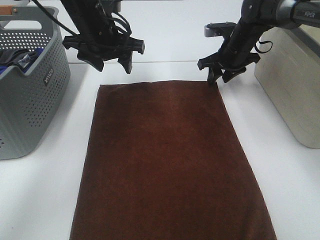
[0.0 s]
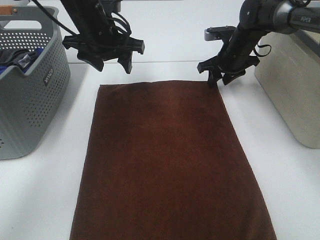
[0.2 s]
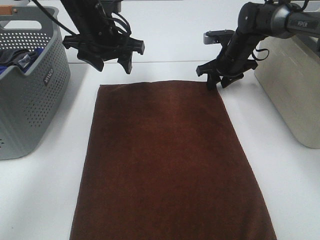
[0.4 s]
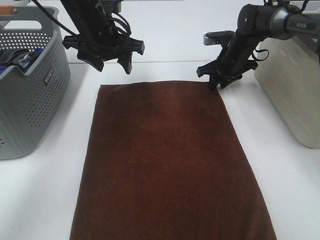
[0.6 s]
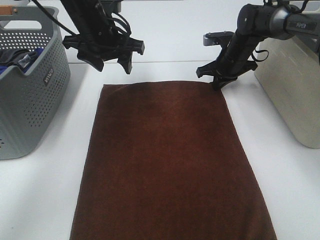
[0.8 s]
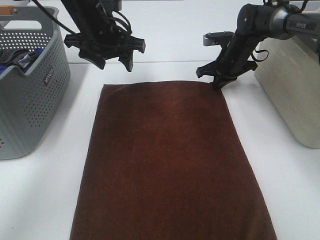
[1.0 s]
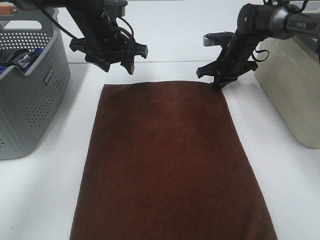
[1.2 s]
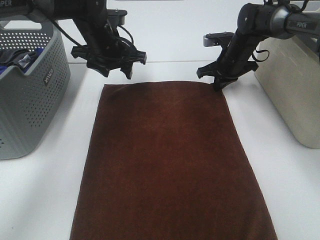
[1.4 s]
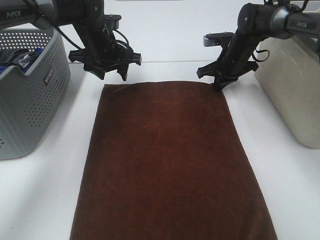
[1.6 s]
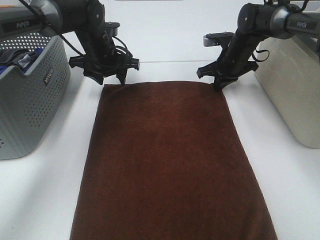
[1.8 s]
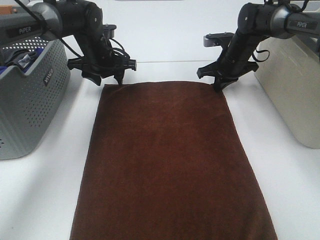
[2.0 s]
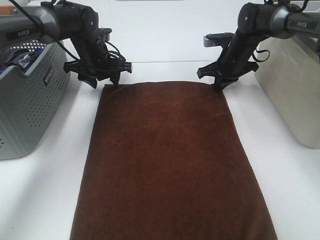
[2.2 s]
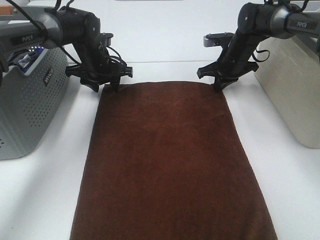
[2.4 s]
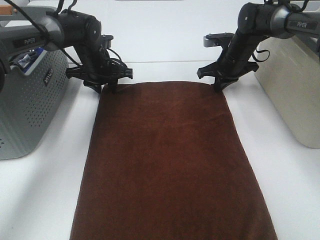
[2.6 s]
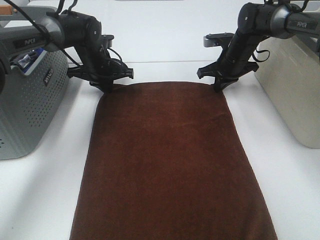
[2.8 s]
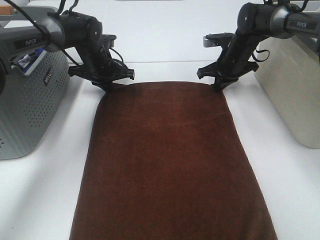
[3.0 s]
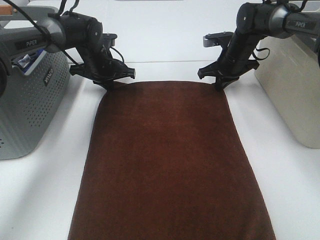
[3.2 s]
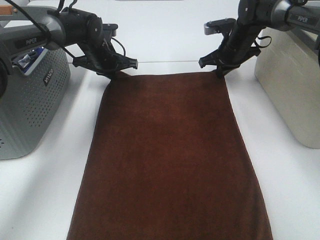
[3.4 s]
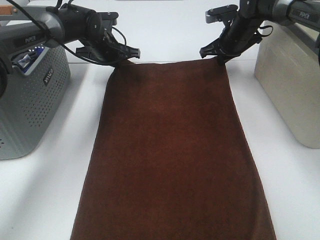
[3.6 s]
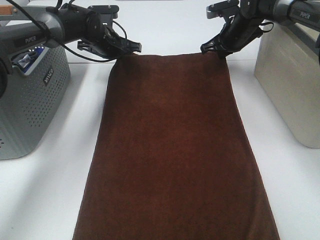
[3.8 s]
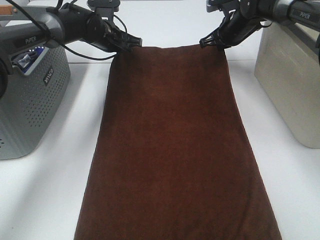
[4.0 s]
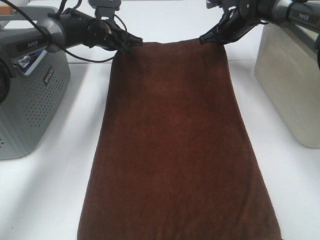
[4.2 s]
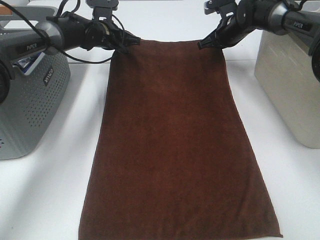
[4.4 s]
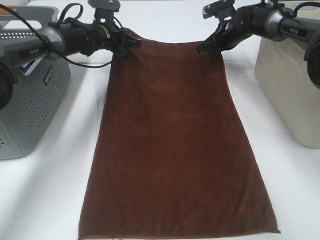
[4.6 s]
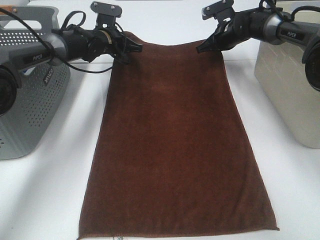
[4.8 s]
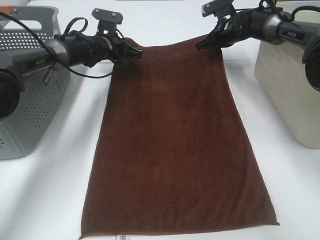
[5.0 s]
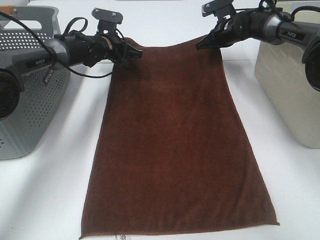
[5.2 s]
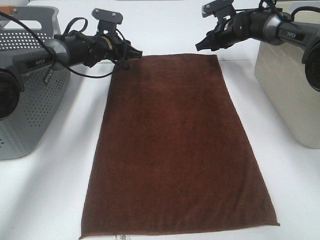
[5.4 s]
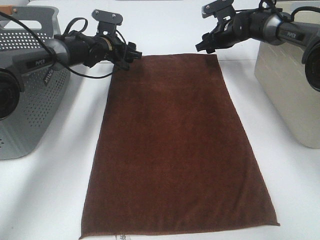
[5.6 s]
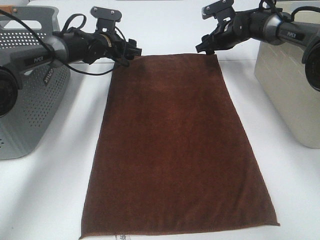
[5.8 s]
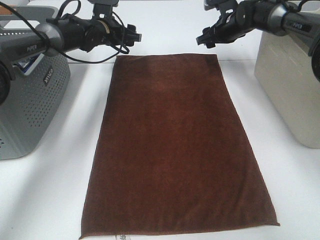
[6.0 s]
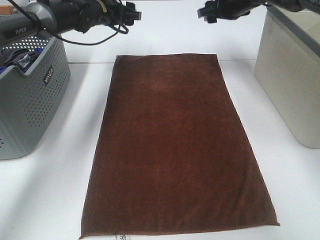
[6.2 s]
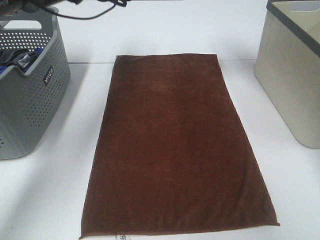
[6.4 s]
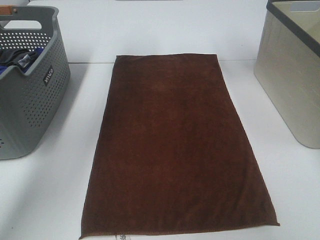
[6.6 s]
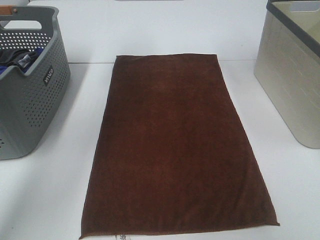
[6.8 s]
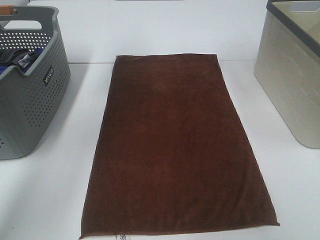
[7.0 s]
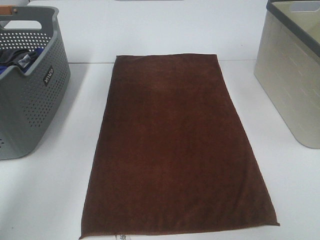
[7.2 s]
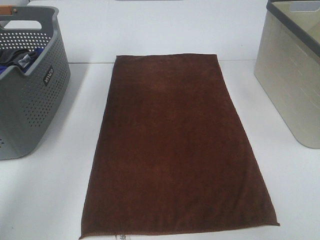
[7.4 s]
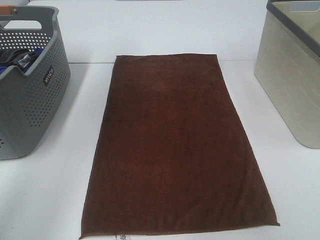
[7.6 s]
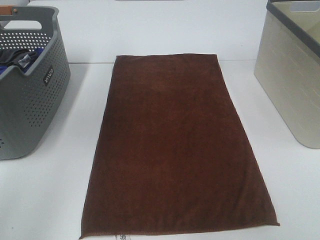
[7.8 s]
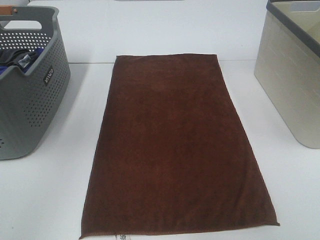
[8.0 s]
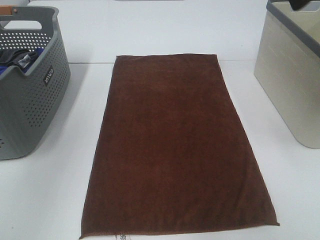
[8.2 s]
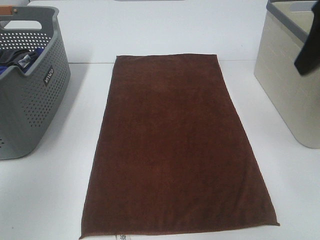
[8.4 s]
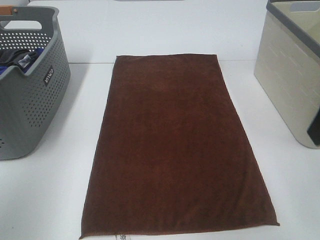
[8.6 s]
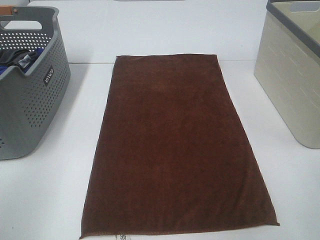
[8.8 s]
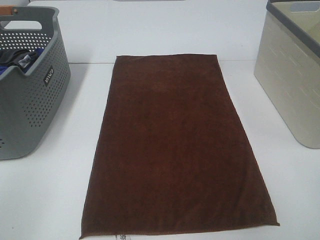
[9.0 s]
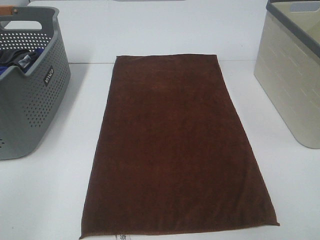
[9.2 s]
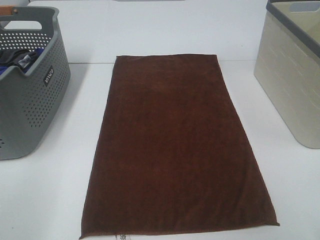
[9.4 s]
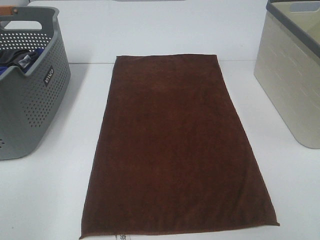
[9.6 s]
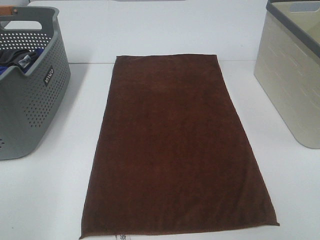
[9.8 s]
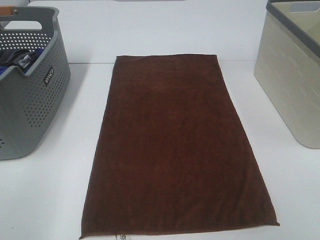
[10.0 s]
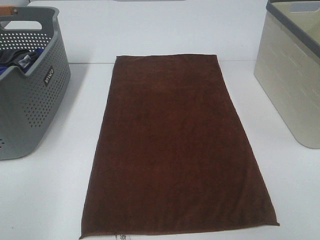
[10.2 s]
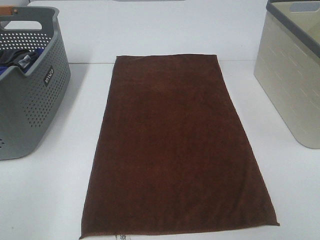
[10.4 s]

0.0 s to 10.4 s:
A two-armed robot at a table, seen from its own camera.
Task of the whole recording: Remove the towel and place it.
0.0 to 1.4 s: The left gripper ends up about 5 cm from where it was; the right gripper closes its fingers.
1.4 to 3.0 s: The left gripper heads downward, covering some 5 cm, and closes up.
3.0 to 4.4 s: The left gripper changes place by about 5 cm. The right gripper shifts approximately 5 cm forward.
4.4 to 6.0 s: The left gripper opens its fingers, while the right gripper opens up.
6.0 to 7.4 s: Both grippers move upward and backward, approximately 30 cm.
7.4 to 9.0 s: The left gripper is displaced backward by about 35 cm.

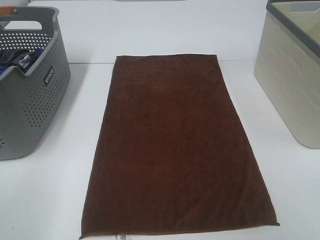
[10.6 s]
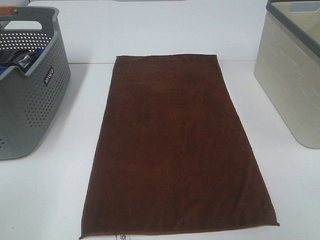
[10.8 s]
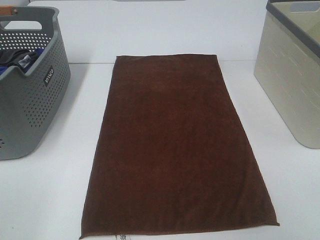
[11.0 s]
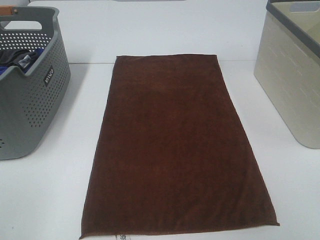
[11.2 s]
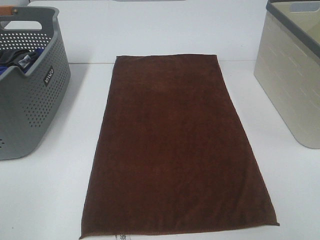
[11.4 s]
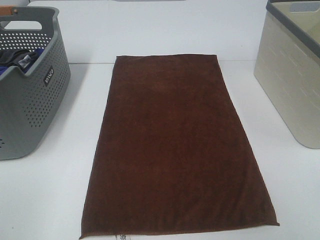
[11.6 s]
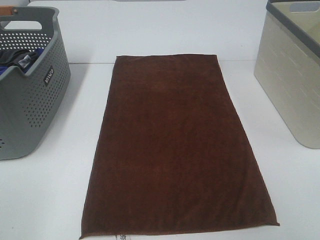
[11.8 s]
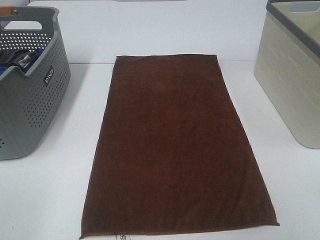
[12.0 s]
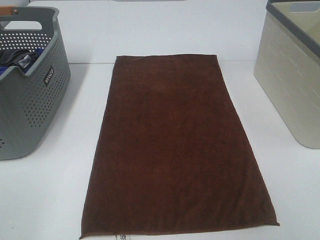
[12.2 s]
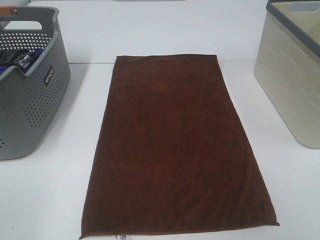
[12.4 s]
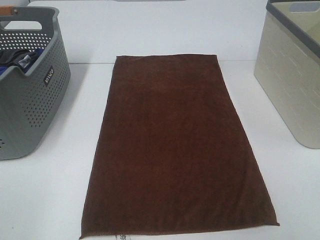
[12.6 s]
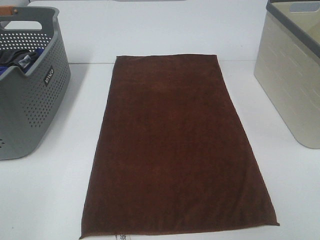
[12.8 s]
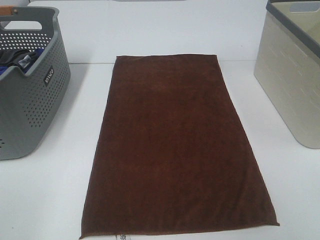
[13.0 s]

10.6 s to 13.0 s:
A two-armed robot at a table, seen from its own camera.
Task of the whole recording: Remove the towel and place it.
11.8 to 13.0 s: Both grippers stay put.

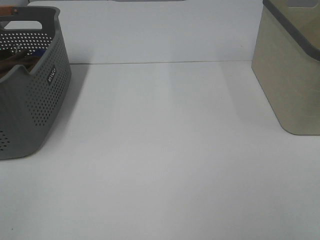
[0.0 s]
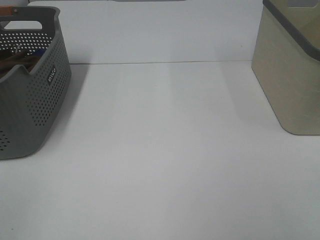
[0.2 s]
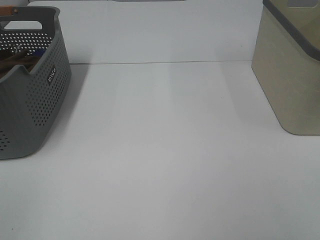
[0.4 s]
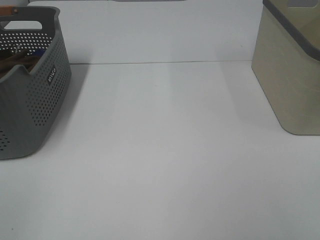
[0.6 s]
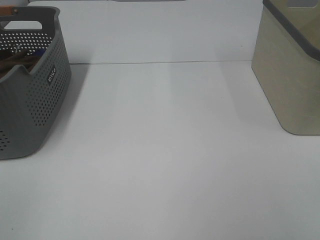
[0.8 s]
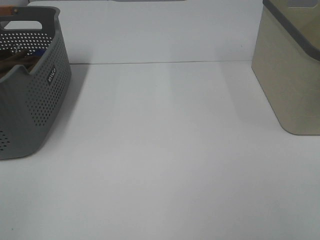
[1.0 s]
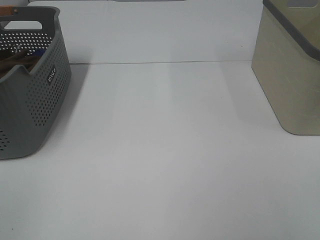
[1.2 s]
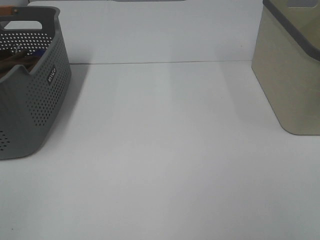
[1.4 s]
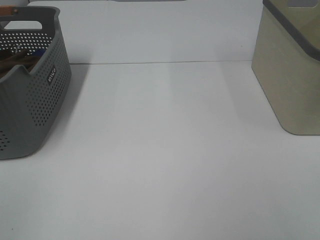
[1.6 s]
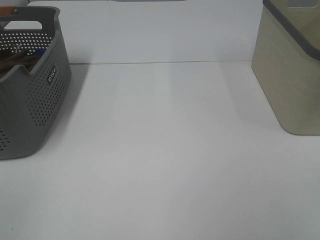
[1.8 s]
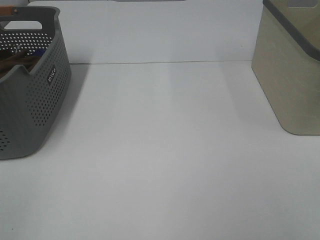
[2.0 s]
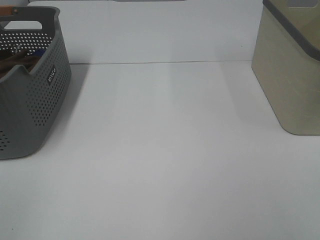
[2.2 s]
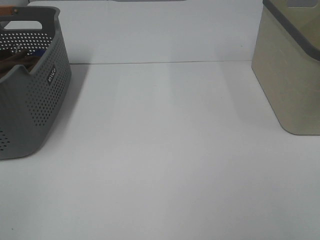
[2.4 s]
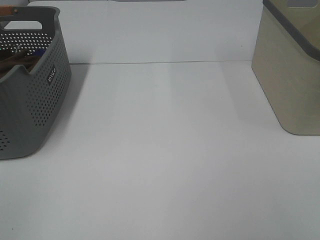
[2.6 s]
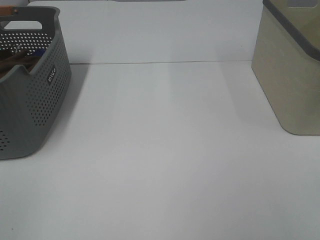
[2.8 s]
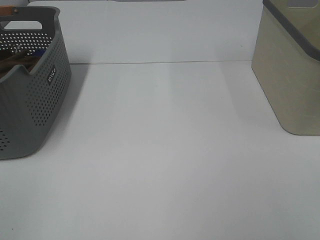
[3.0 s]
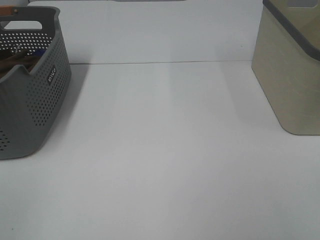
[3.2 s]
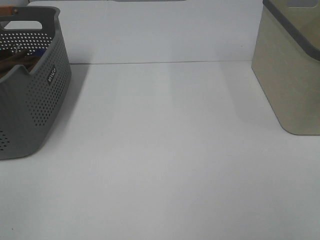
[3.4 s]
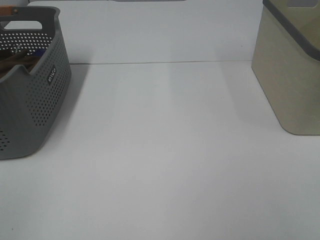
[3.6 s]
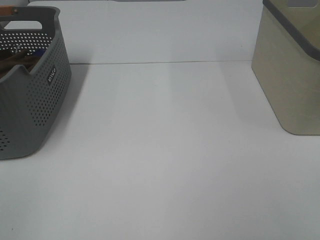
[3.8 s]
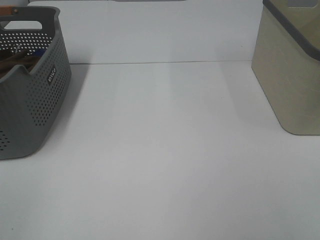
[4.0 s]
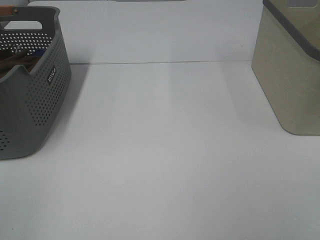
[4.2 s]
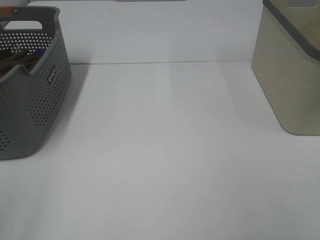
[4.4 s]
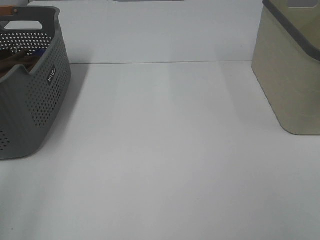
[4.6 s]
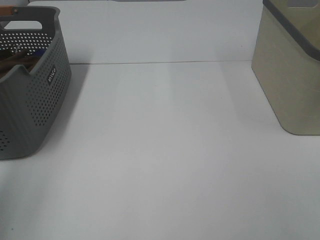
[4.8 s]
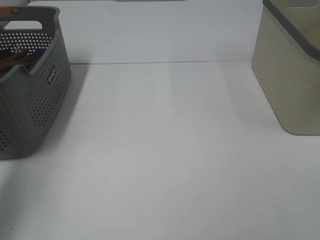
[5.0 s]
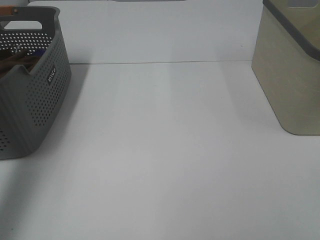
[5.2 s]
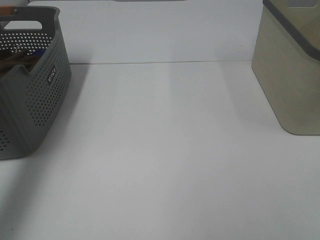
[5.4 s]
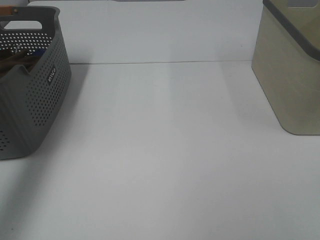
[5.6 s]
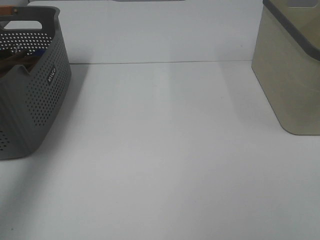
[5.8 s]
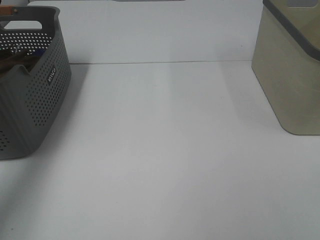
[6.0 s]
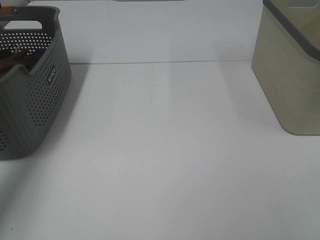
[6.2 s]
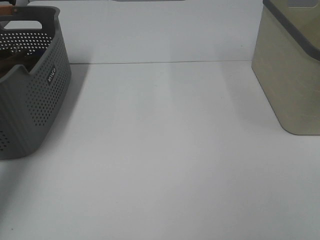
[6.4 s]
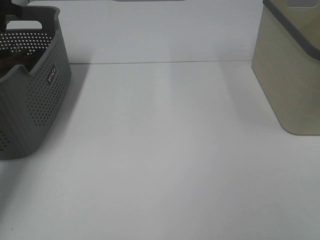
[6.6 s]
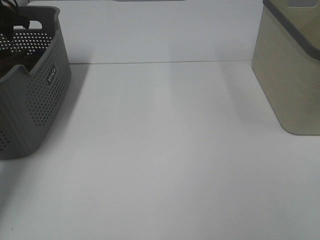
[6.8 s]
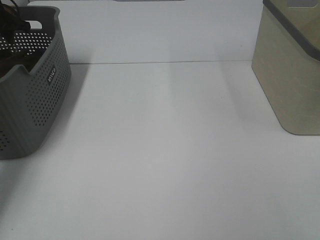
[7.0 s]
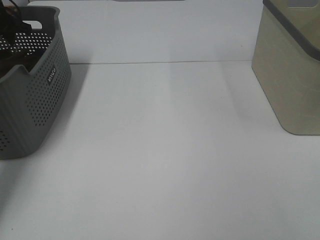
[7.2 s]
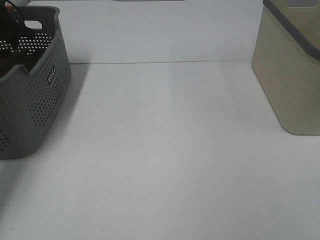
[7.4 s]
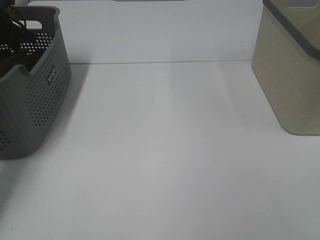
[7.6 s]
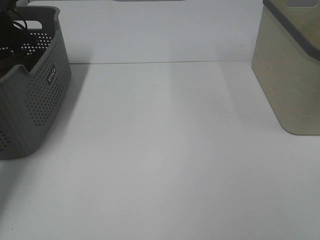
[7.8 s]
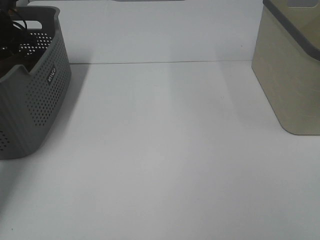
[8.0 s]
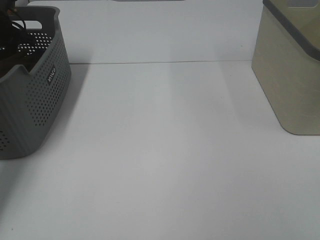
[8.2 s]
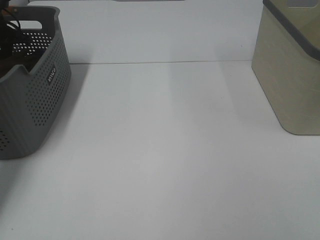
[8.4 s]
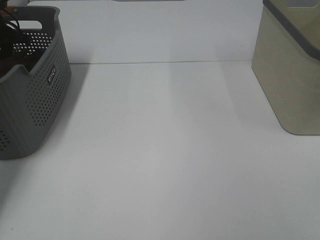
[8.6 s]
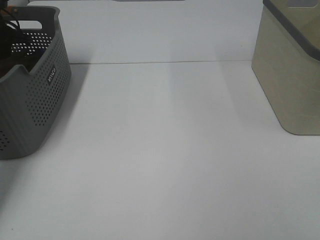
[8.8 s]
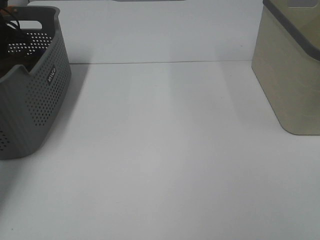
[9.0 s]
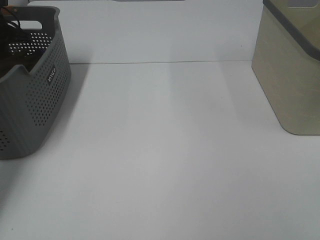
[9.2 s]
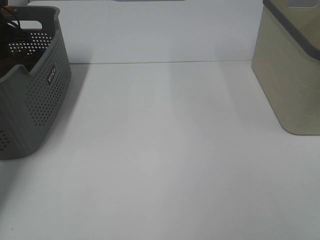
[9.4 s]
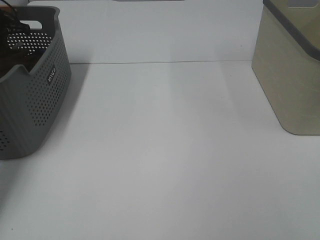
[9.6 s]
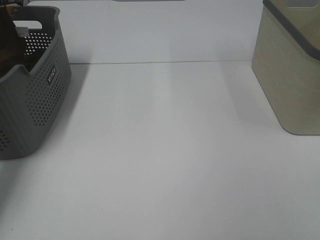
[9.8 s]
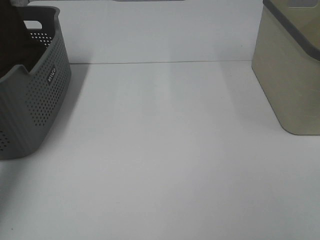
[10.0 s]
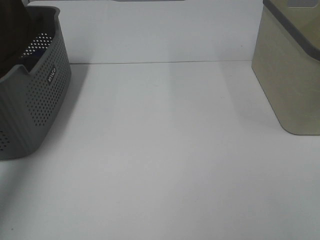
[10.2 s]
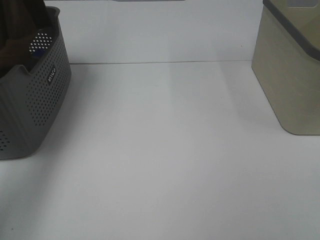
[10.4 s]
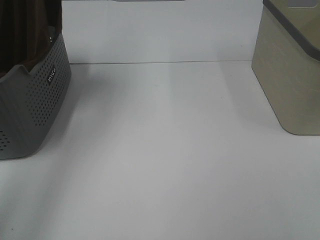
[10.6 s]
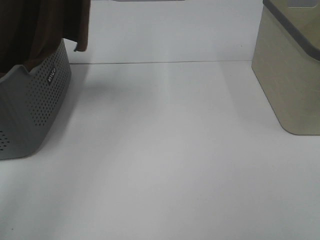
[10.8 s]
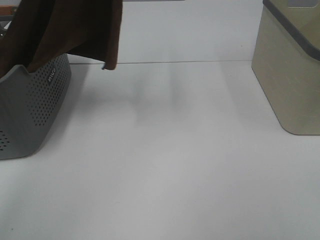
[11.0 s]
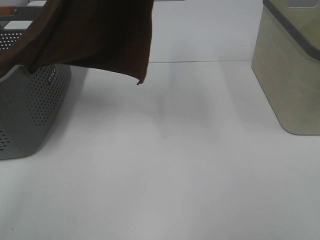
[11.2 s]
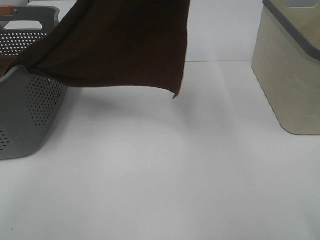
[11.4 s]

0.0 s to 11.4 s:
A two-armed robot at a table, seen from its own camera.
Task of the whole recording: Remove the towel and place it.
0.0 to 2.8 s: Neither gripper changes place.
4.2 to 5.6 s: The left gripper travels forward by some 35 cm.
5.6 to 7.2 s: The left gripper shifts about 25 cm forward and downward.
10.0 to 11.4 s: The left gripper travels to the right, backward and upward by roughly 40 cm; the right gripper is displaced forward by approximately 5 cm.
